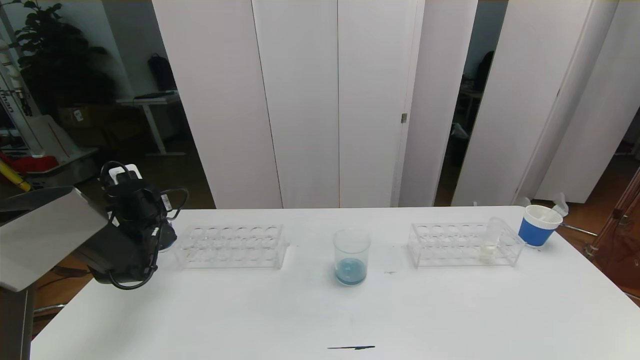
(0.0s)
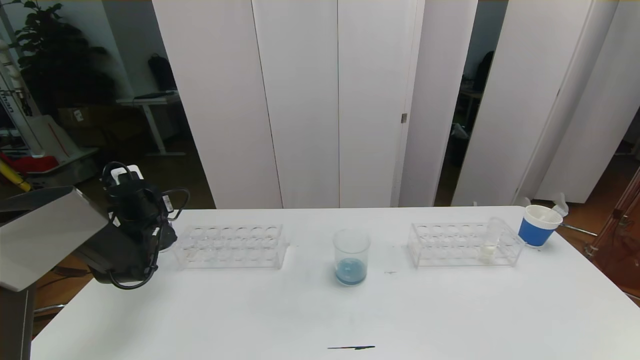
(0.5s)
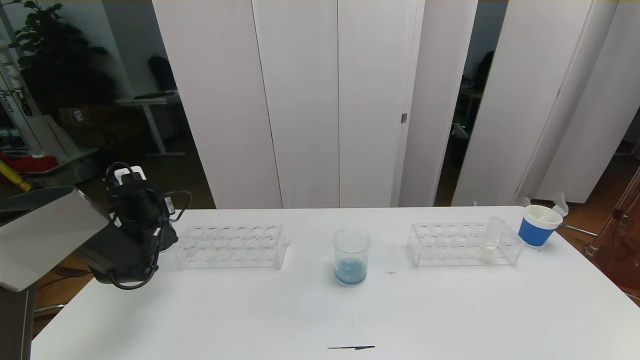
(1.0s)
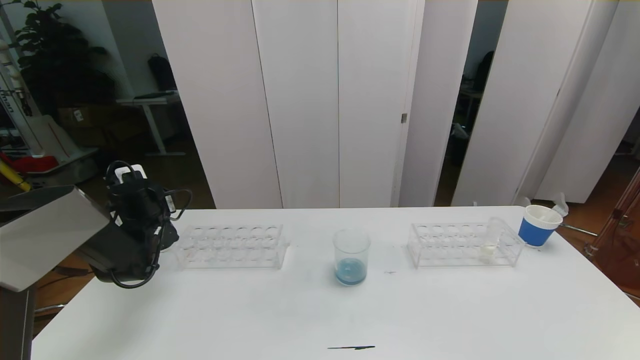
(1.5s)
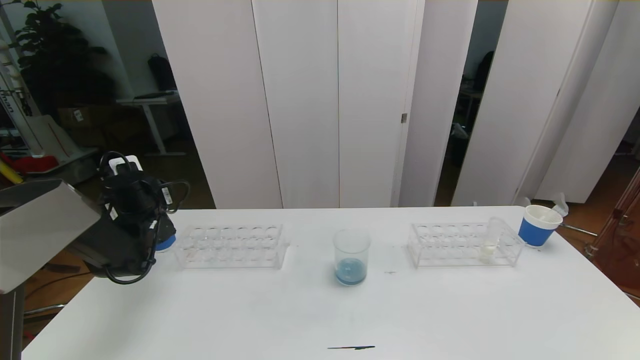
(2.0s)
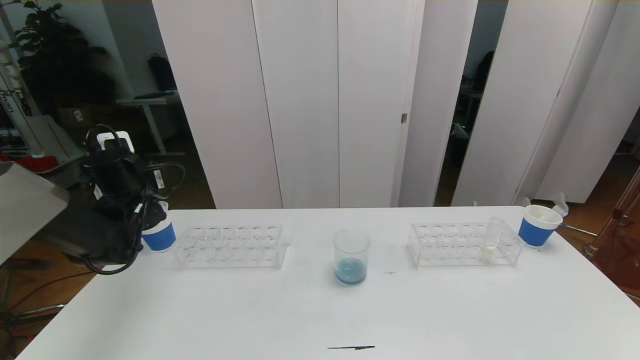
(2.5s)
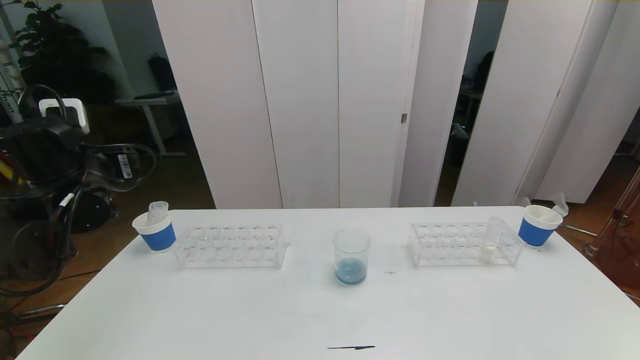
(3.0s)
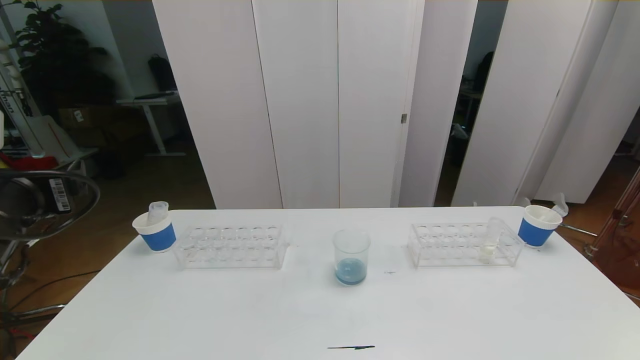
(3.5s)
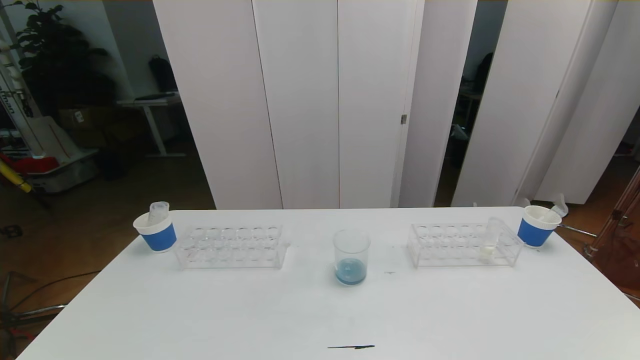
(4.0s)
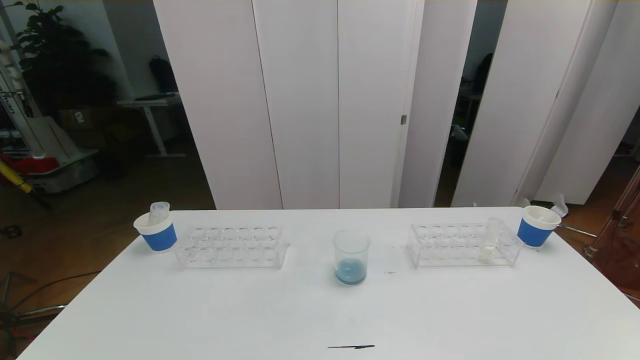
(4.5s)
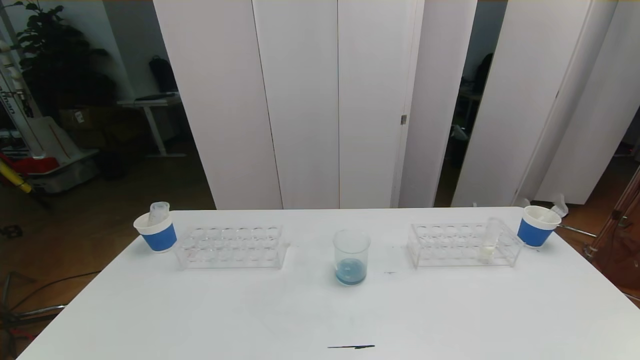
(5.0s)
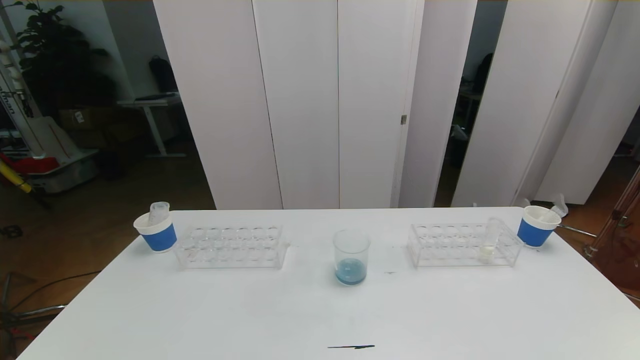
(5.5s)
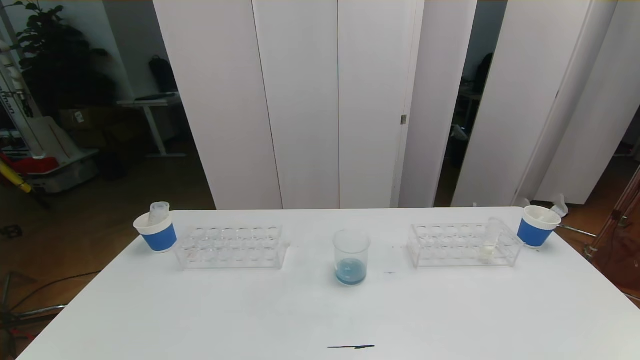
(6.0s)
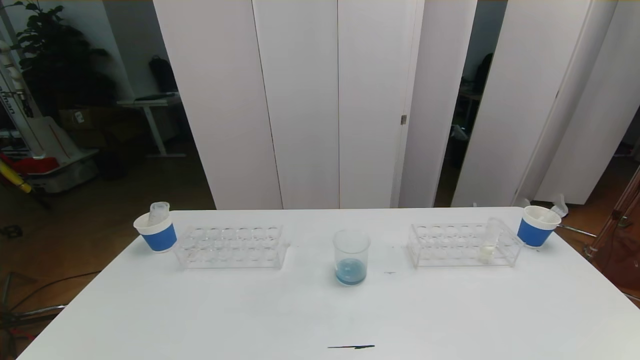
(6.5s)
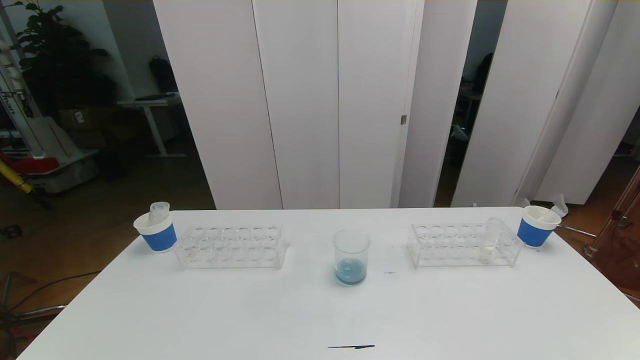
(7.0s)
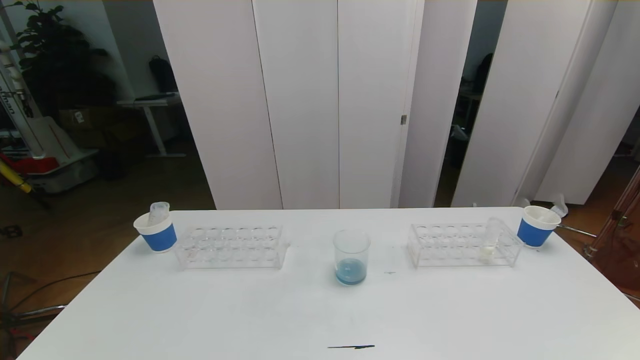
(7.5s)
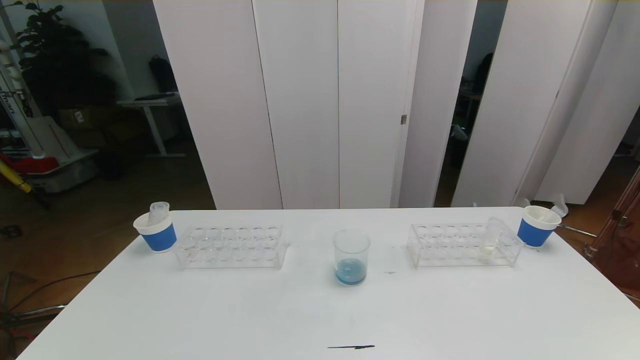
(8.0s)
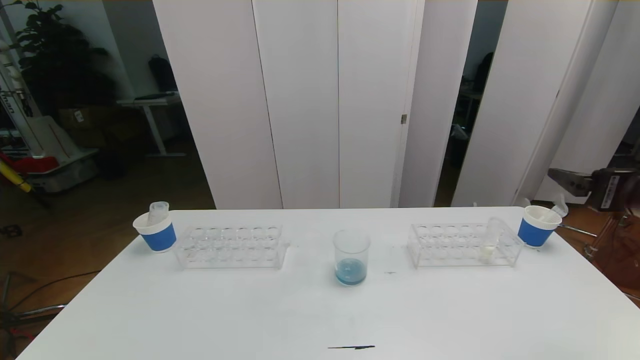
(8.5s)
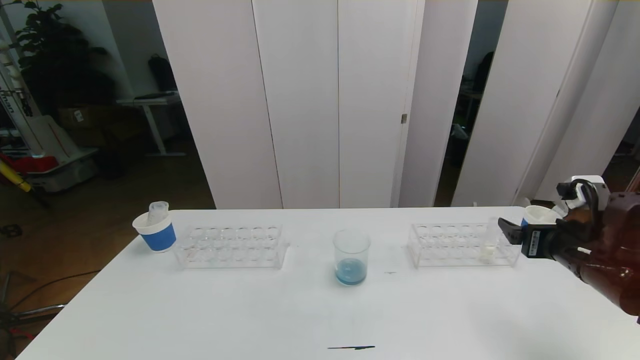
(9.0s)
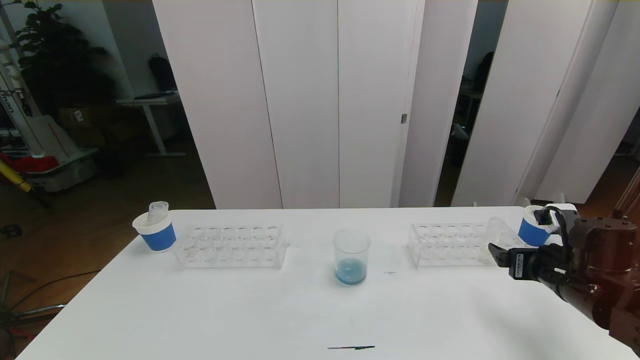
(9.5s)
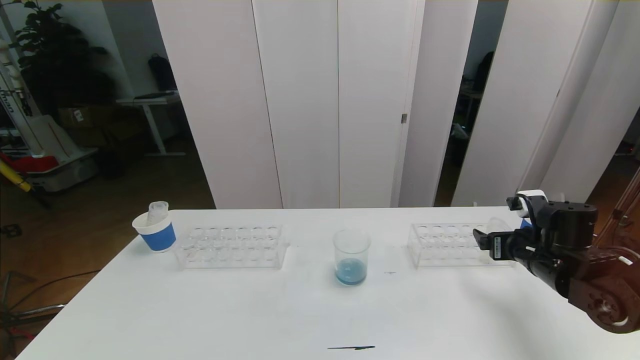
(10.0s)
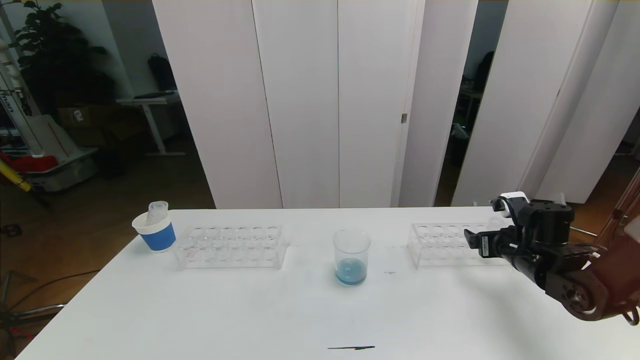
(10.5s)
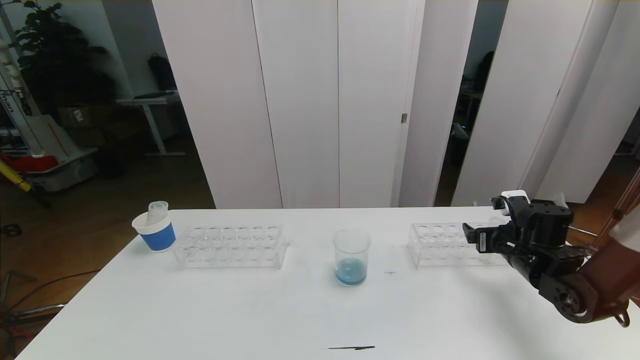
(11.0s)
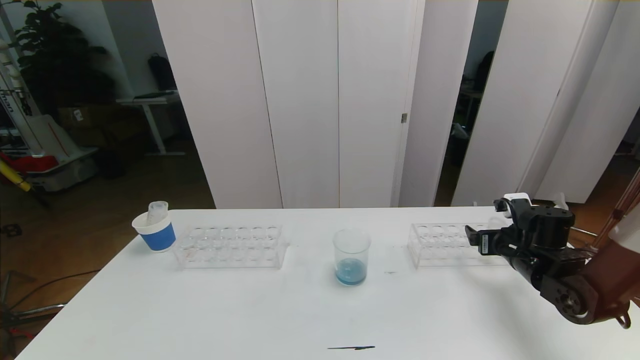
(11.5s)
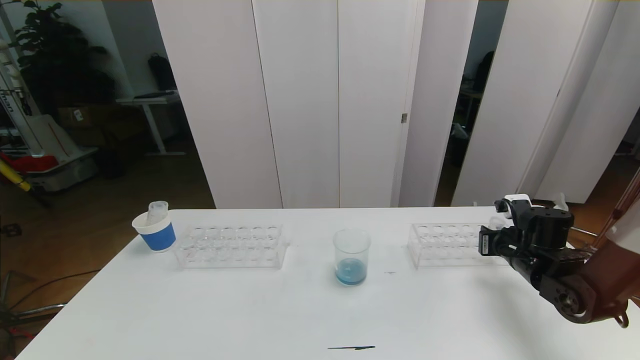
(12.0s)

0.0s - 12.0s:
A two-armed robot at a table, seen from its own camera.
Task of the whole recording: pick up the test tube with red pigment the test tube with blue pigment and the test tube with white pigment by grippers and pour them into the beaker.
Step, 0.0s - 5.5s: Pour the orange reagent into the graduated cylinder and place the test tube into the paper cup.
0.0s - 2.0s: The left gripper opens its fingers.
2.0s - 4.0s: The left gripper travels backward by about 40 cm.
8.0s - 10.0s: The right gripper goes about 30 cm downward and forward.
10.0s - 12.0s: The right gripper moves about 5 cm, and closes its fingers.

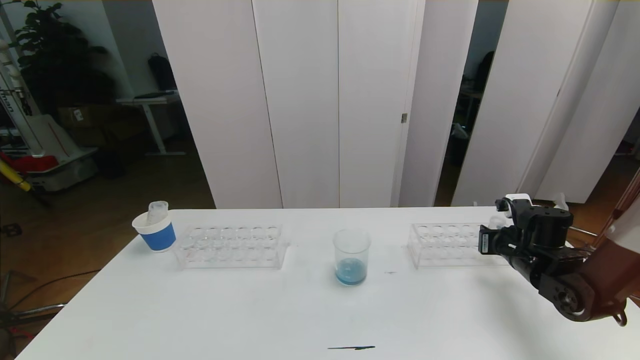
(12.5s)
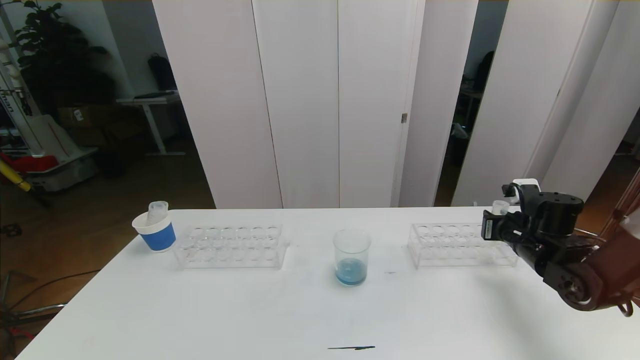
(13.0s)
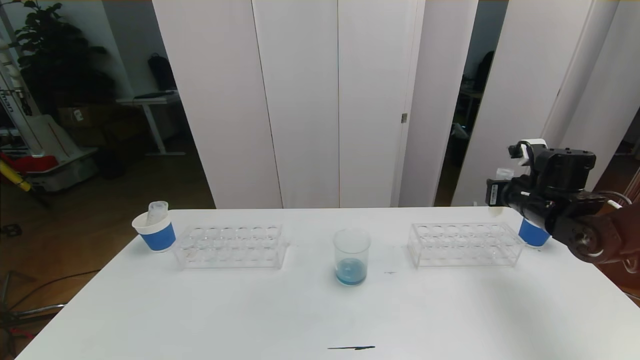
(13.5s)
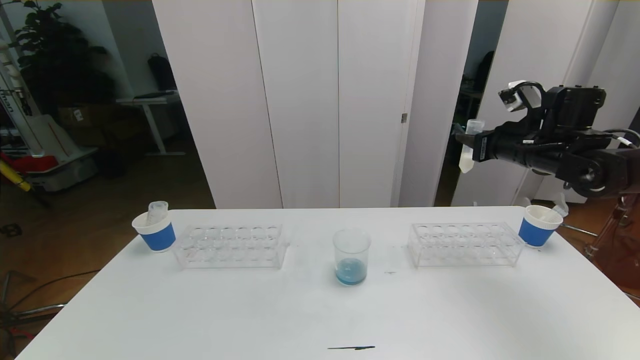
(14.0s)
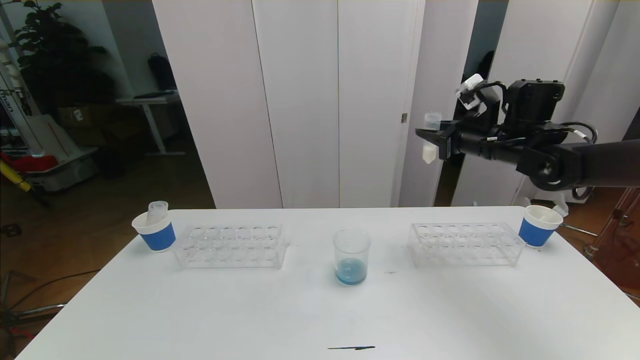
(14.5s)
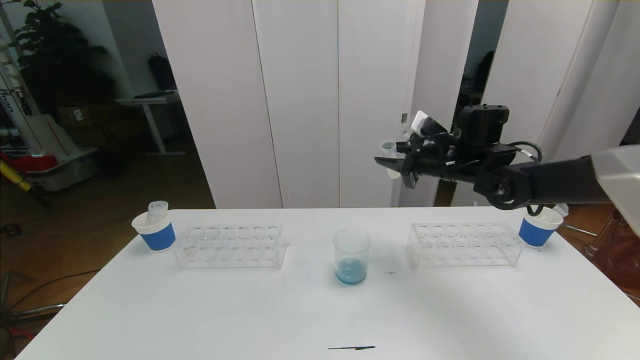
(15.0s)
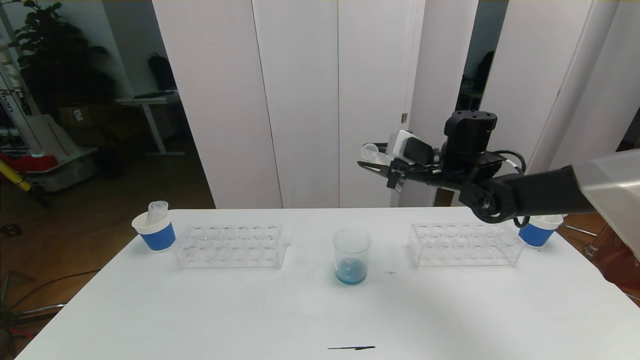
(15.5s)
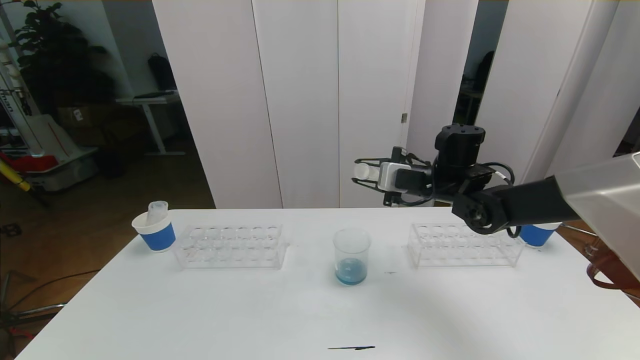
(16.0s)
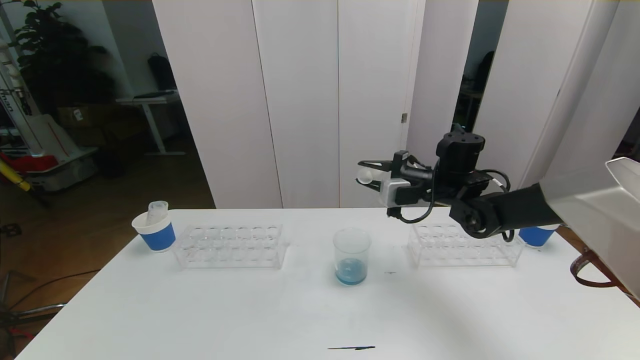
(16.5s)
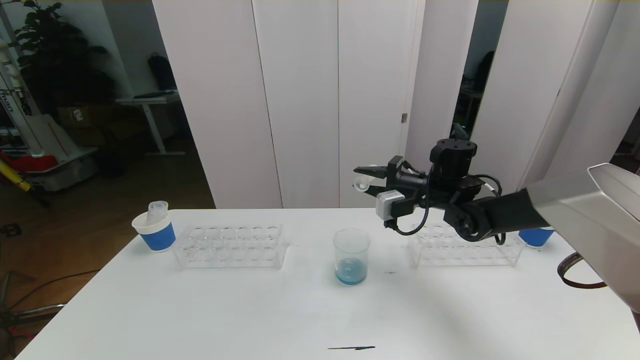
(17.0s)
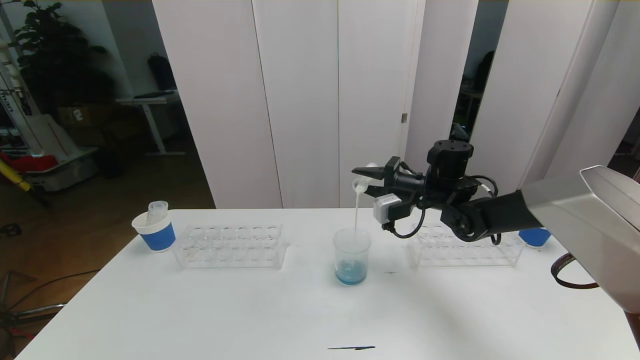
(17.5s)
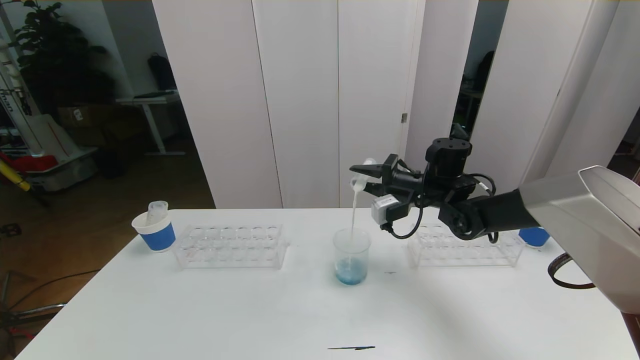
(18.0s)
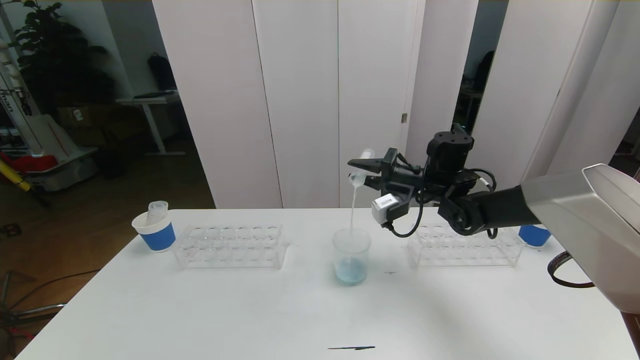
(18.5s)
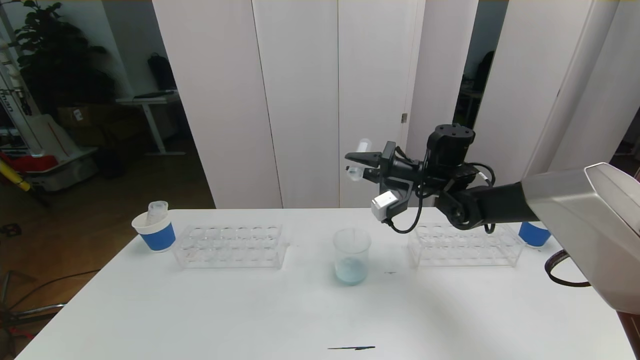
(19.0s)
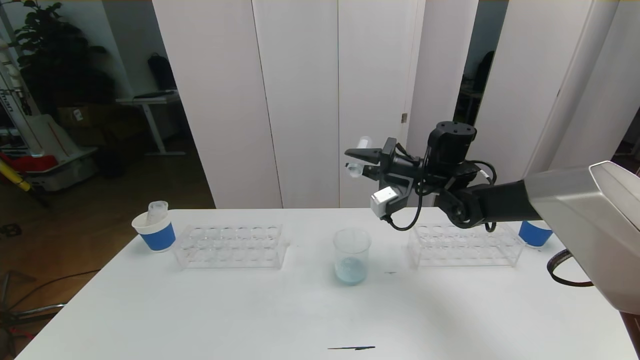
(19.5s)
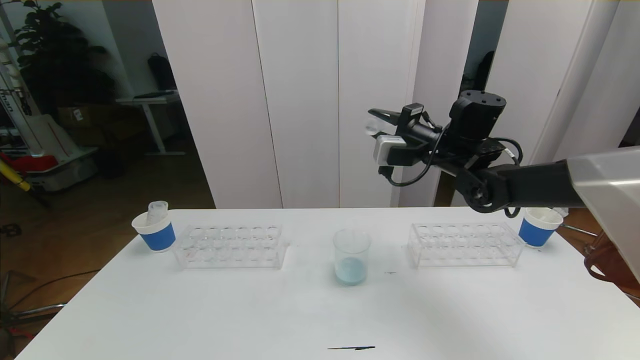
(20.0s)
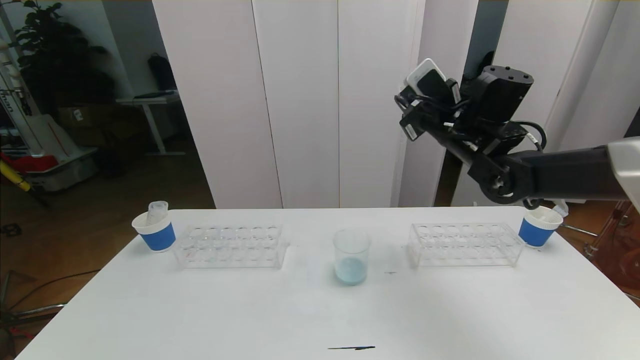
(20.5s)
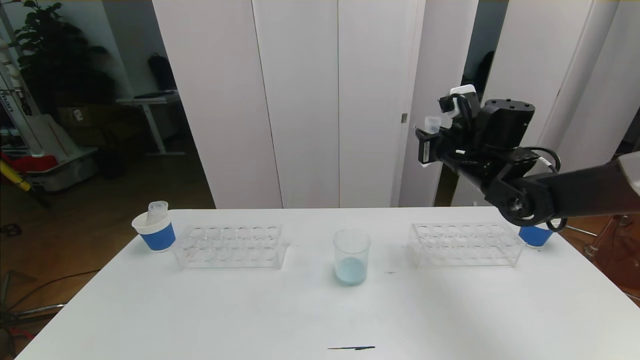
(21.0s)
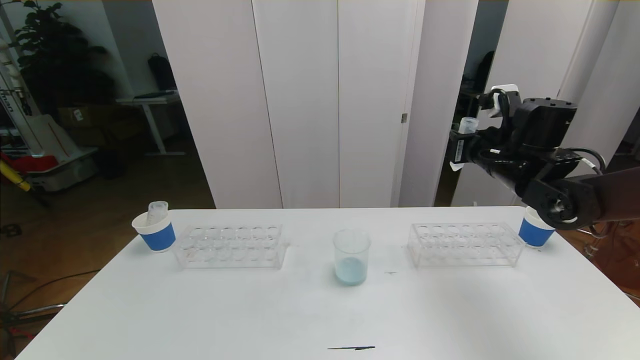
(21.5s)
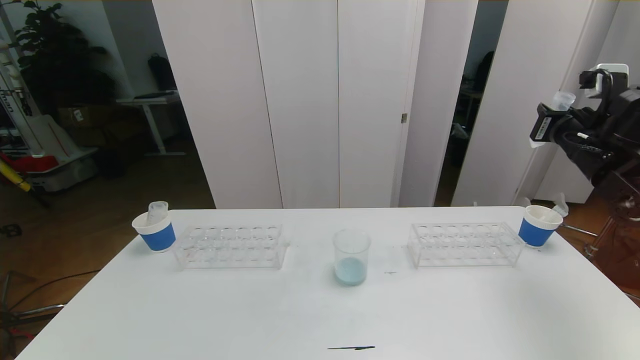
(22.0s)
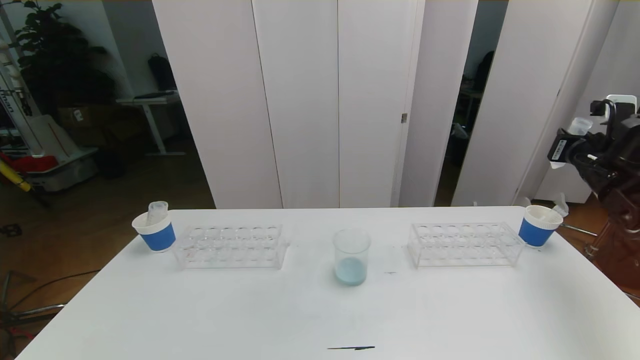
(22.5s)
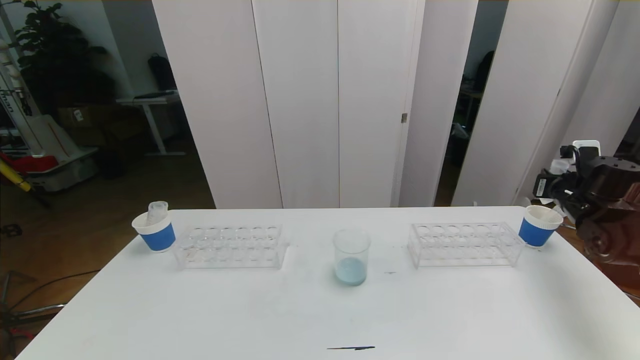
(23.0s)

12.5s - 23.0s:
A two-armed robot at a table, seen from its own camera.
Task of the whole recording: pick up the test tube with red pigment the test tube with blue pigment and the test tube with white pigment by grippers and pour them into the beaker.
12.5s - 14.5s: The right gripper goes some 20 cm upward and forward.
14.5s - 16.5s: The right gripper is displaced to the left and downward by approximately 10 cm.
19.0s - 21.0s: The right gripper heads to the right, covering approximately 5 cm.
21.0s - 23.0s: The right gripper moves to the right, approximately 25 cm.
